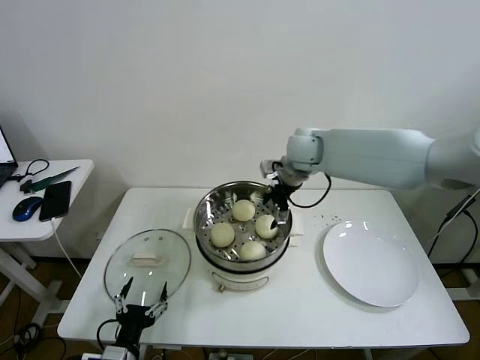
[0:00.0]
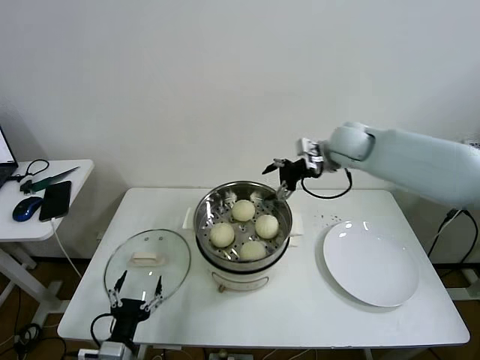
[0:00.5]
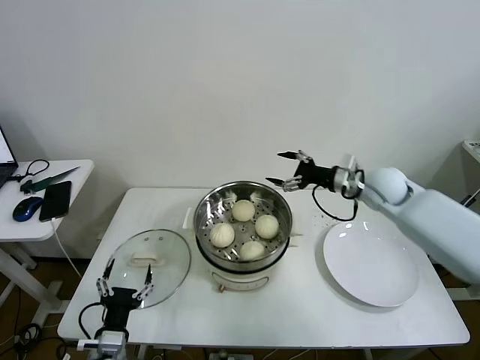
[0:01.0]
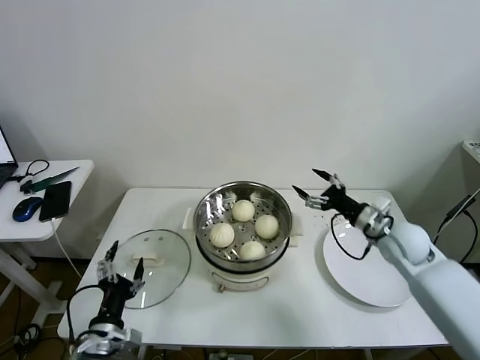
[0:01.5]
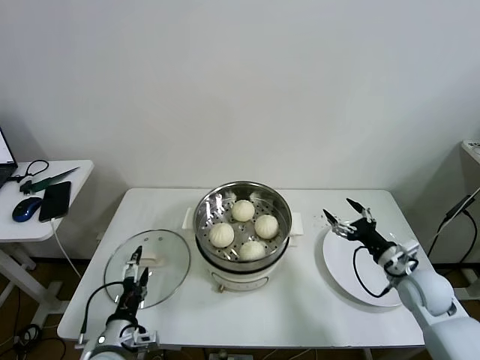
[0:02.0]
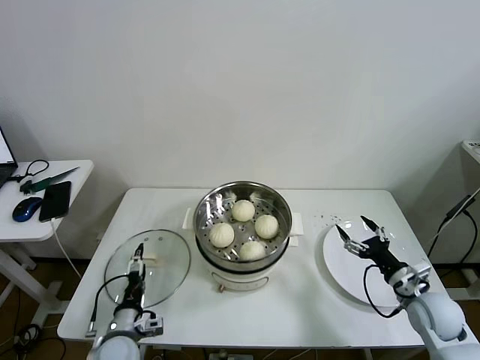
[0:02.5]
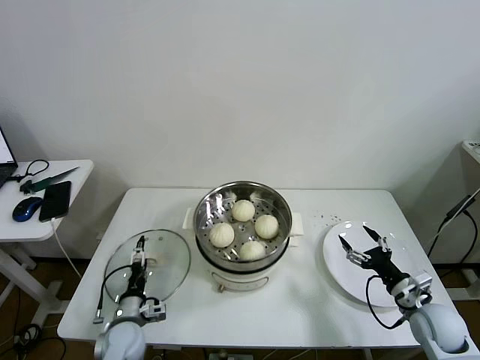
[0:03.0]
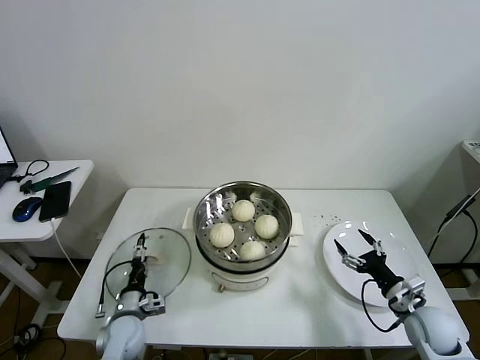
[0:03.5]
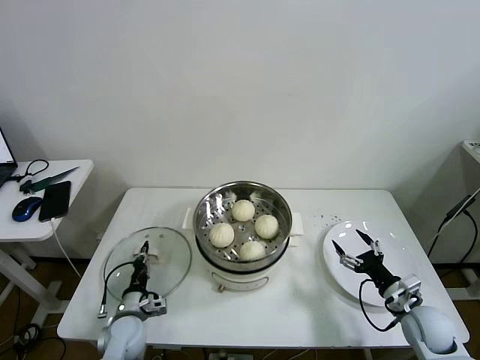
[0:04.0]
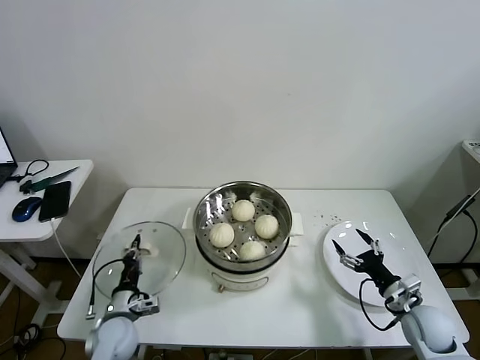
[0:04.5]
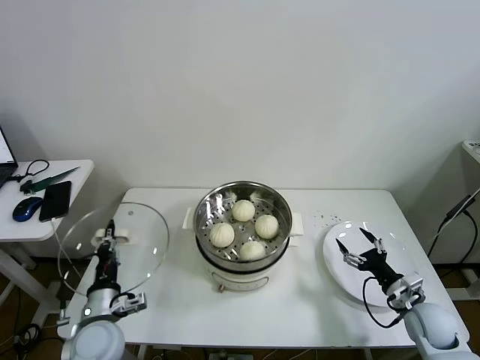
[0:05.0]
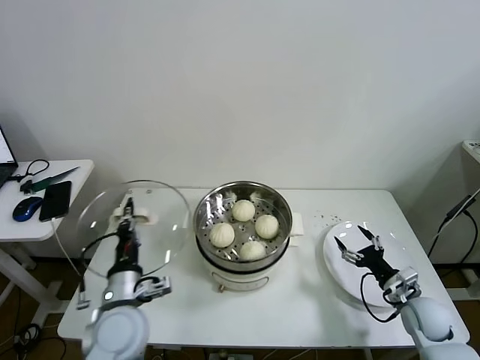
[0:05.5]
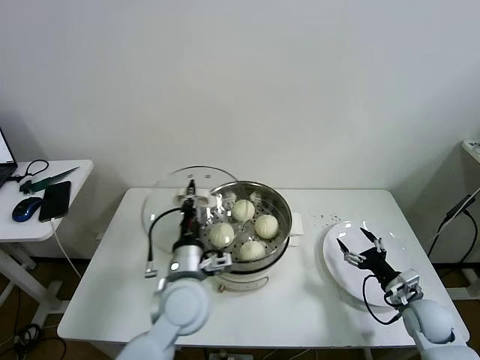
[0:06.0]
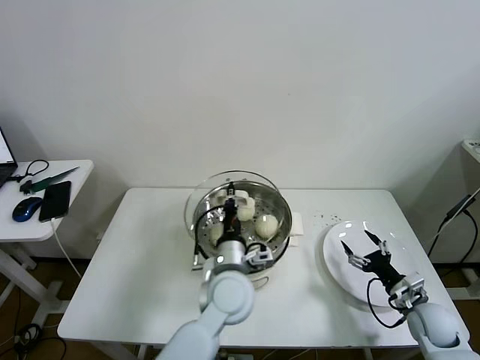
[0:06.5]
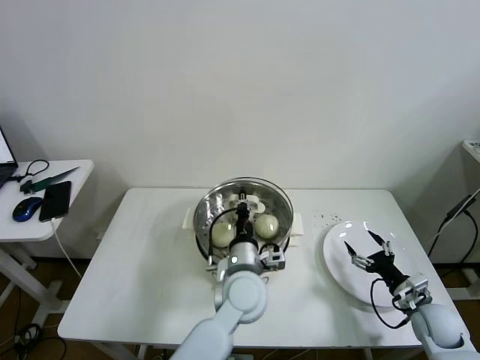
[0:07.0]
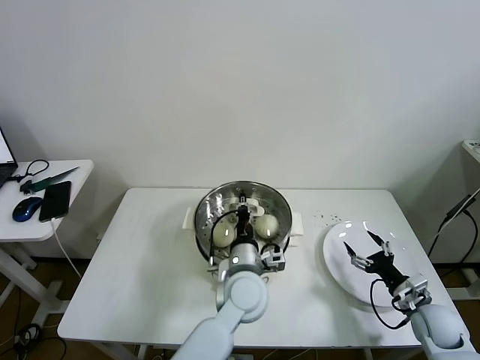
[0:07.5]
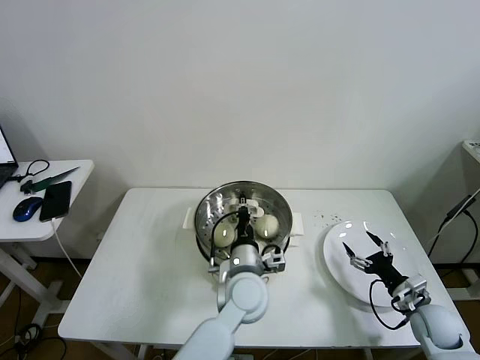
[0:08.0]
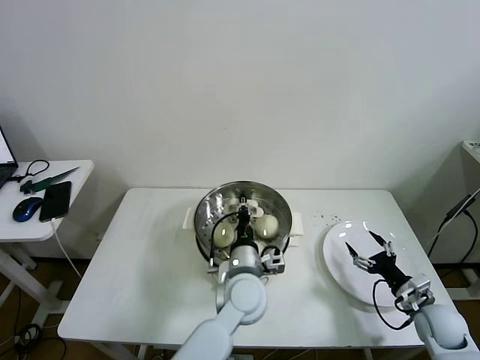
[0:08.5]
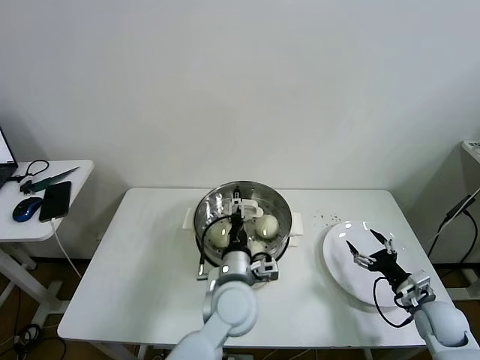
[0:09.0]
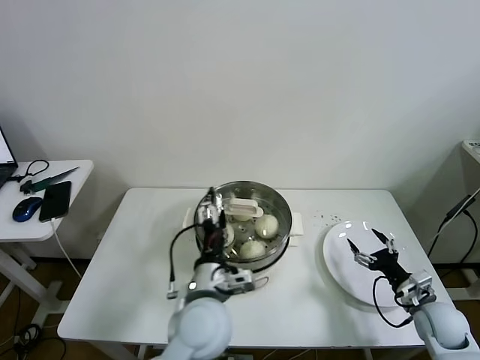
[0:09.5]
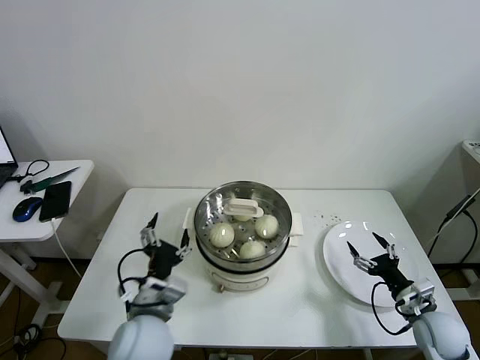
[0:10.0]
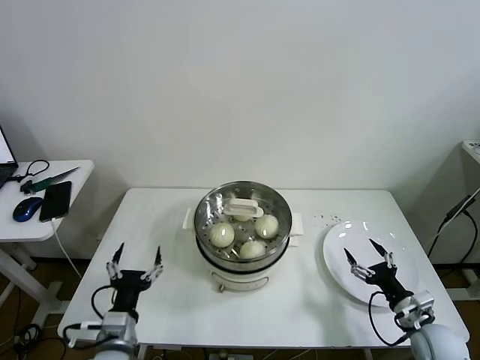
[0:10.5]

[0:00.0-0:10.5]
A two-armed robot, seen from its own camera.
Task of the whole recording: take steamed baozi put them in steamer then cover it.
Step, 0:00.0 to 0:04.0: Grasp the pot lid with left gripper.
Step, 0:04.5 to 0:08.5: Place the pot lid on the steamer with left gripper.
0:00.0 to 0:02.0: The left gripper moves forward, roughly 5 cm. Meanwhile the right gripper shifts approximately 40 cm to the right, backward and downward.
0:02.0 to 0:04.0: The left gripper moves forward and downward, approximately 15 cm, and closes. The right gripper goes approximately 10 cm downward and backward.
0:04.0 to 0:06.5: The left gripper moves to the right and upward, some 35 cm.
0:06.5 to 0:08.5: The grippers move only a little.
0:08.5 to 0:10.5: The left gripper travels to the left and backward by about 30 cm, and opens its fingers. Meanwhile the right gripper moves roughly 5 cm.
